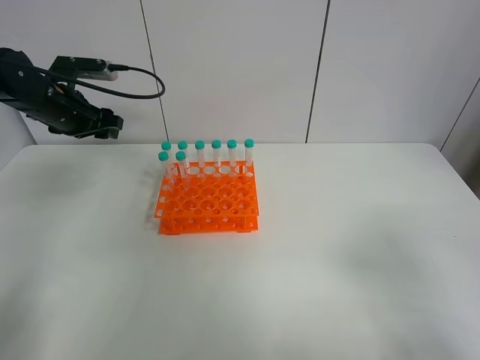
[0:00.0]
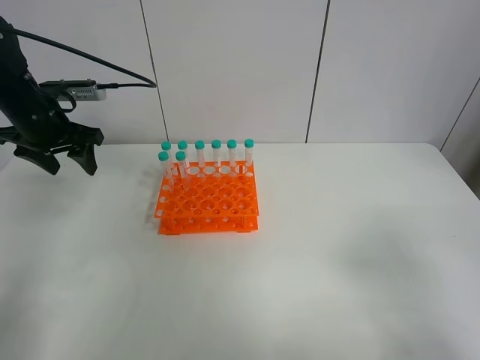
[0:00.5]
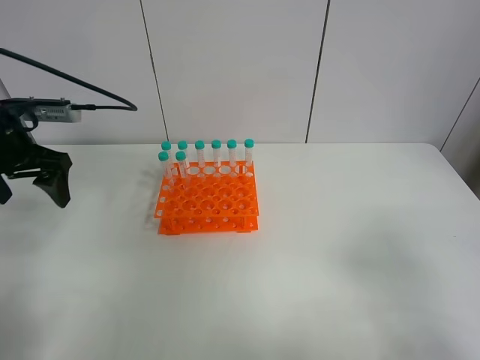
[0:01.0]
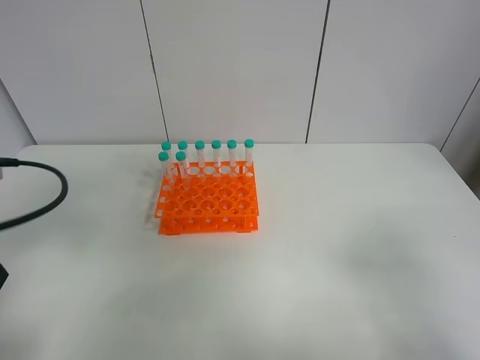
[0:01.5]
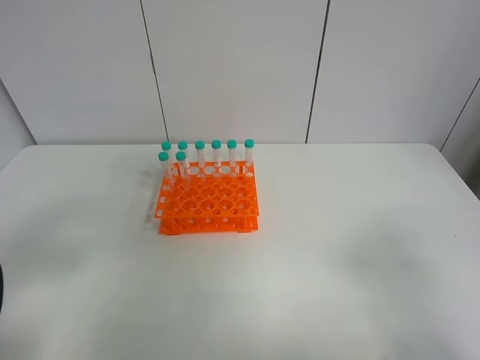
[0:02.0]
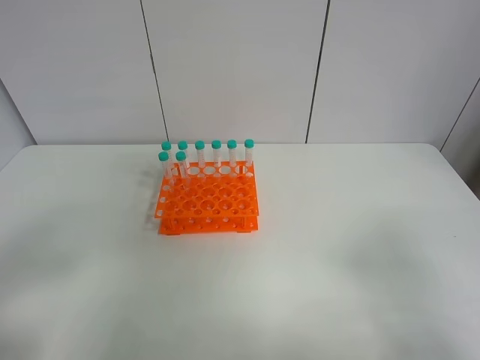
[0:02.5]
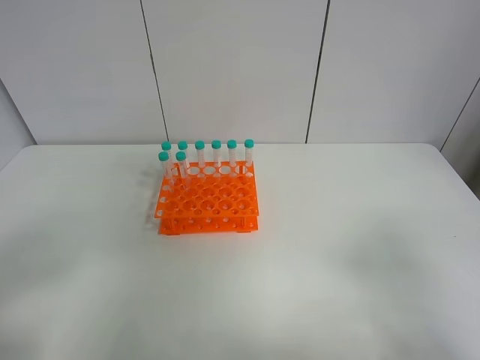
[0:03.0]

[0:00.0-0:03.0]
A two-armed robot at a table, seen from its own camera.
Task of the whole recording: Put the test tube on the table back onto the test tube rack.
0:00.0 to 0:01.5: The left gripper moves backward, some 25 cm.
0:01.5 to 0:03.0: The left gripper shifts about 15 cm backward.

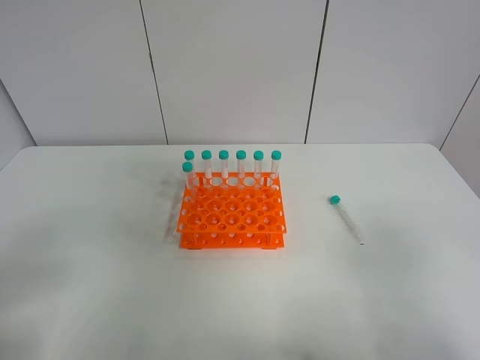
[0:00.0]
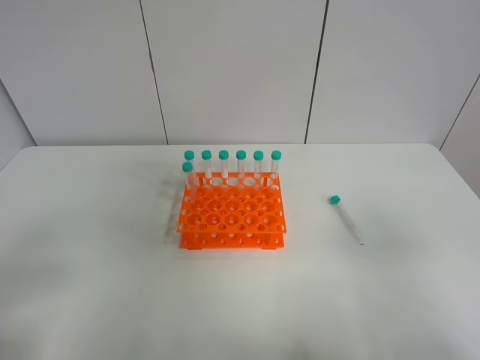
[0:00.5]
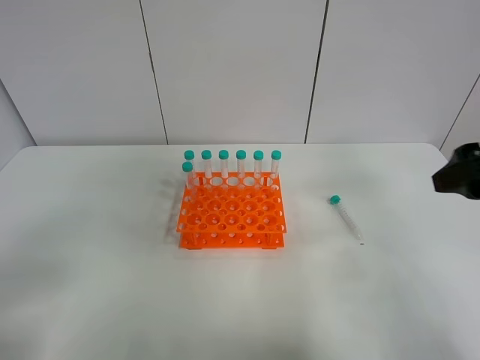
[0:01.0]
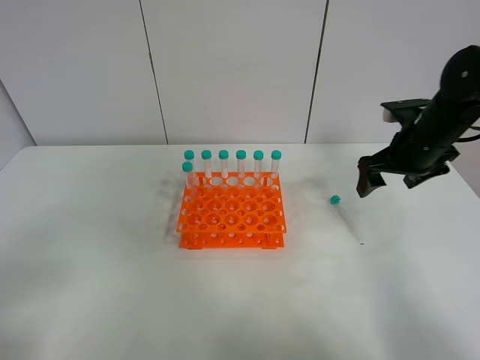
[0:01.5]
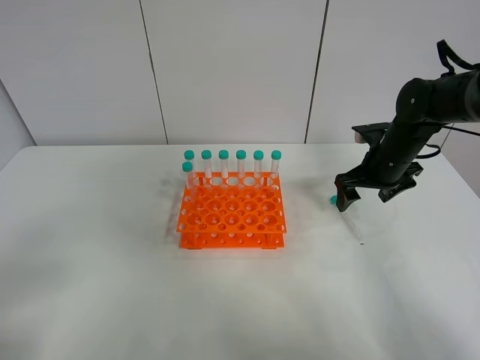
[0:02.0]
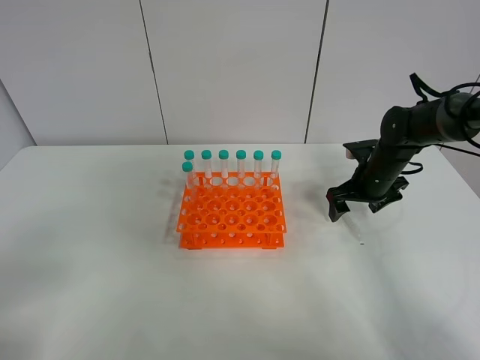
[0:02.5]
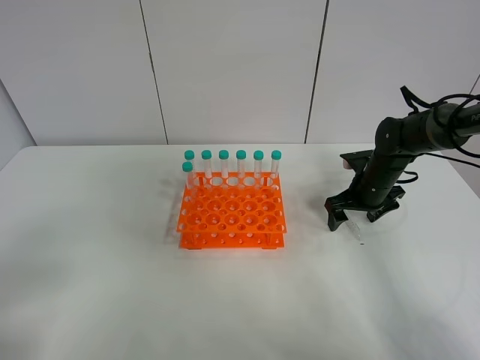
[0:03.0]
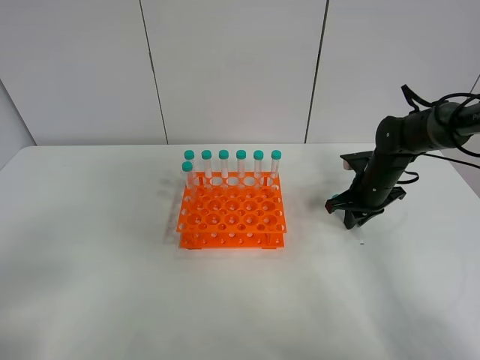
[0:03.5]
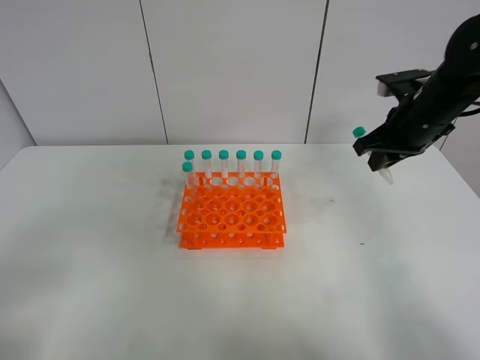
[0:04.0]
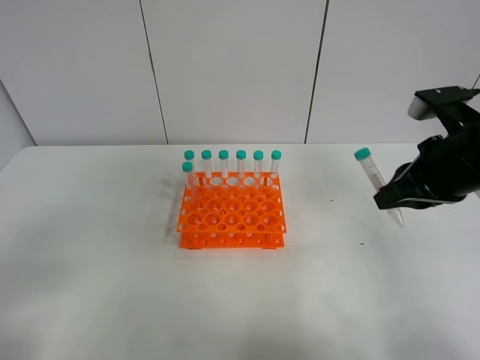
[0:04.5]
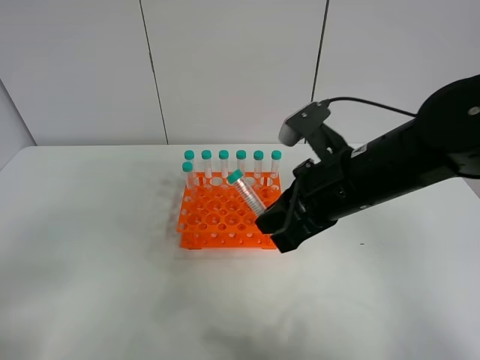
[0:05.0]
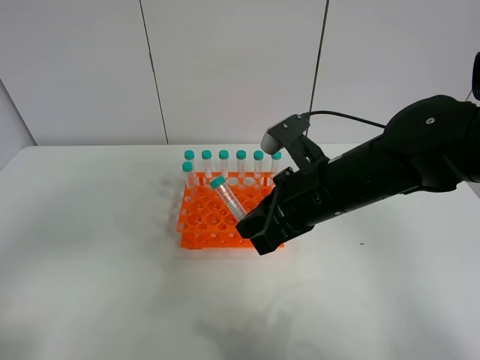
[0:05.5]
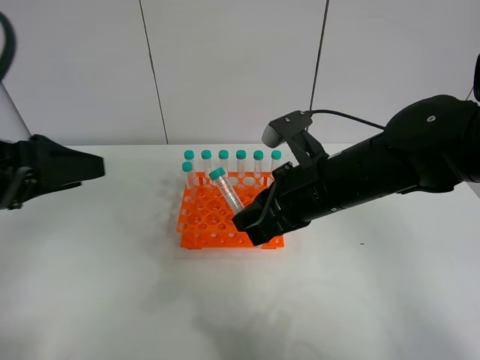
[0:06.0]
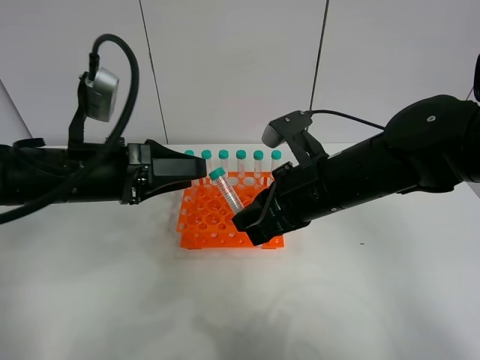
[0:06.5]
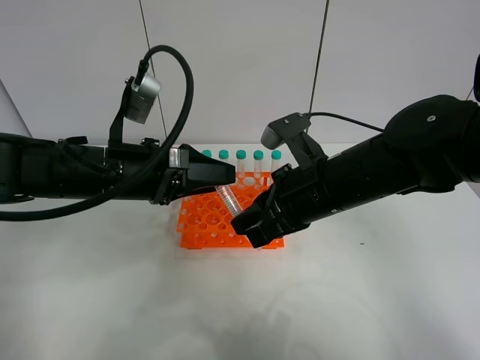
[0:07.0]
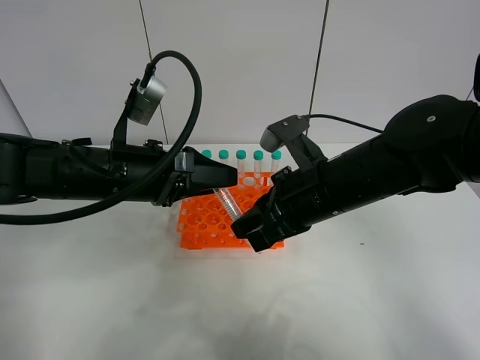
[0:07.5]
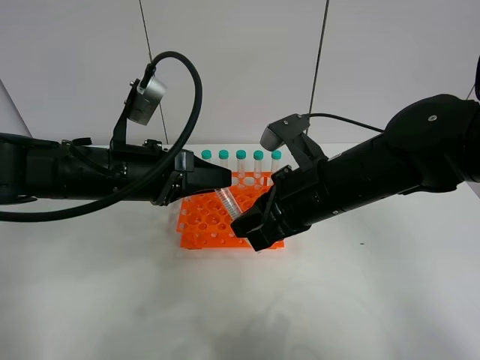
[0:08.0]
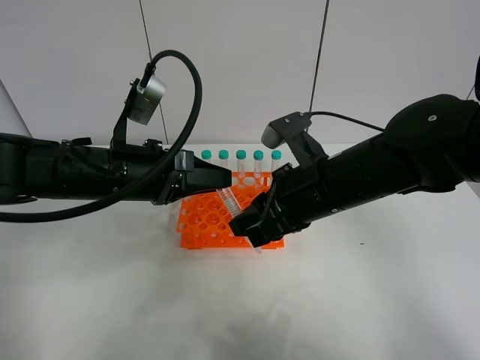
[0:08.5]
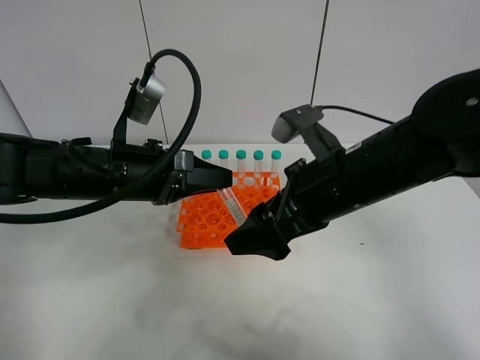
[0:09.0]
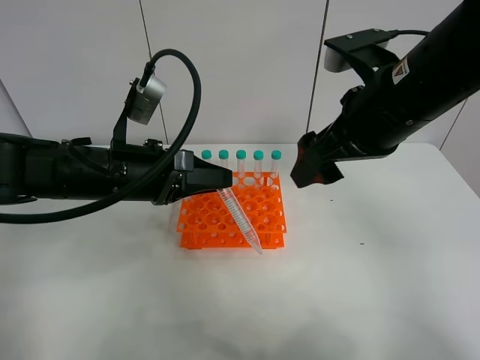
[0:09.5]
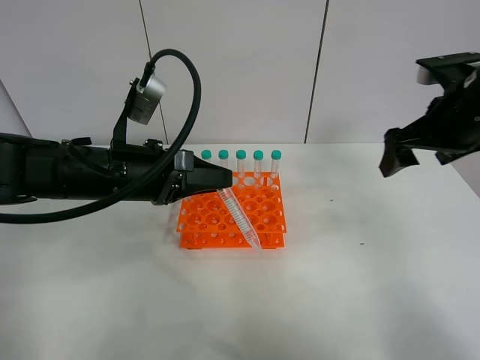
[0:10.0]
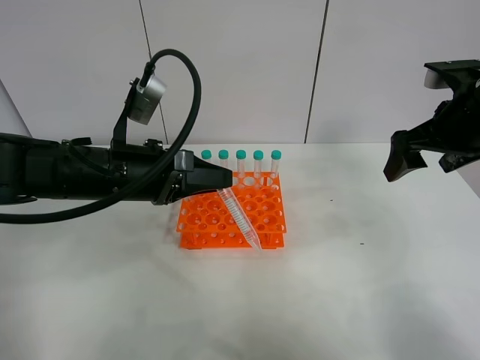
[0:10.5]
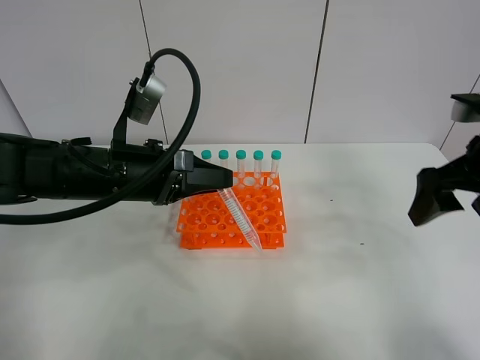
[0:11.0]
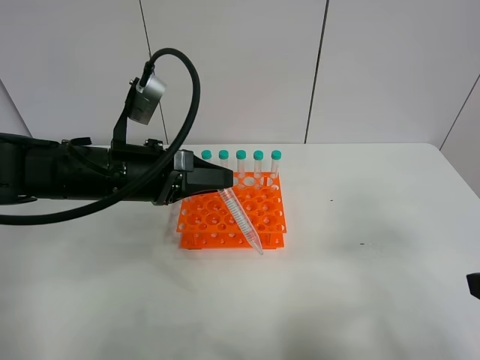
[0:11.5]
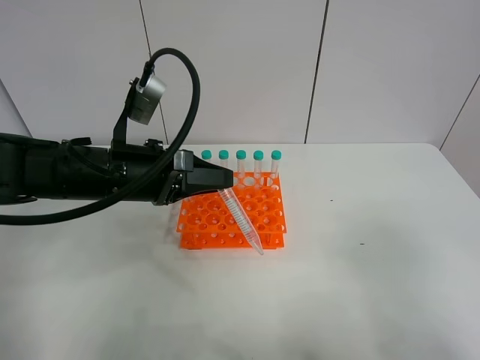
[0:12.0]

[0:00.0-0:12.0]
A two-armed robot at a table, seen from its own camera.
Task of the whole recording: Put the test tube on the table back onto the test tube rack.
Step, 0:00.0 to 0:03.5: Pick up the test tube with the right gripper.
Step, 0:04.0 to 0:08.5: Move the test tube from the right gripper to the left gripper.
0:00.0 to 0:02.0: The right gripper is displaced forward by roughly 40 cm.
0:02.0 to 0:04.0: The right gripper goes approximately 10 cm upward, and closes its fingers.
0:04.0 to 0:06.0: The left gripper heads forward, covering roughly 20 cm. Meanwhile the right gripper goes about 20 cm to the left and backward.
0:06.0 to 0:08.0: The left gripper travels to the right, downward and forward by roughly 15 cm, and closes up.
0:08.0 to 0:10.0: The right gripper travels to the right by some 20 cm, and opens.
0:10.0 to 0:12.0: The right gripper travels backward by approximately 30 cm.

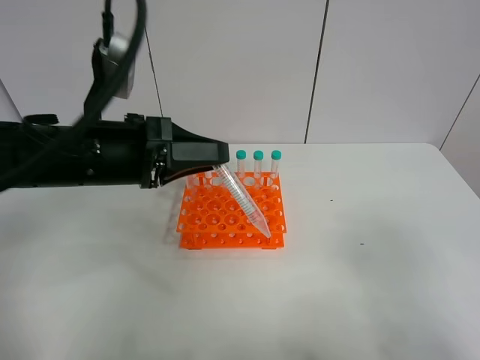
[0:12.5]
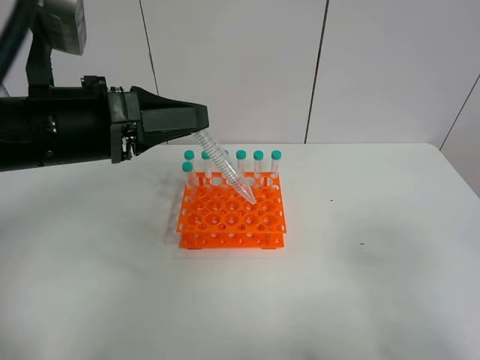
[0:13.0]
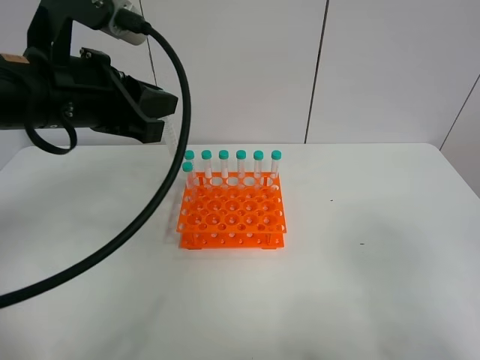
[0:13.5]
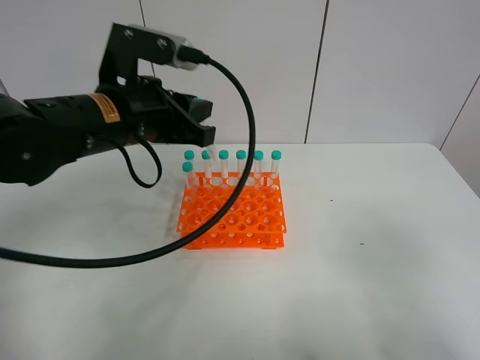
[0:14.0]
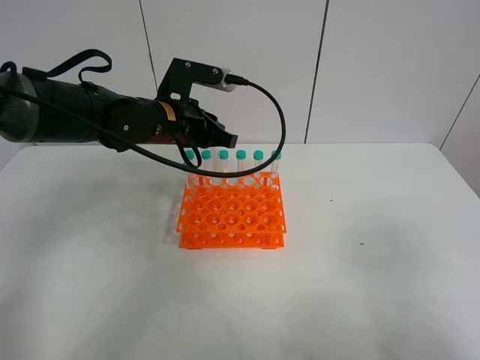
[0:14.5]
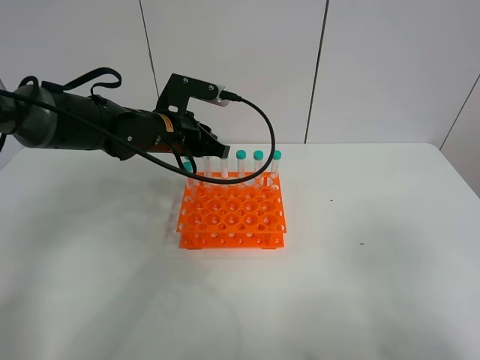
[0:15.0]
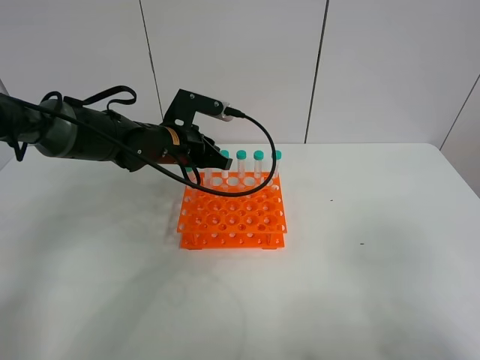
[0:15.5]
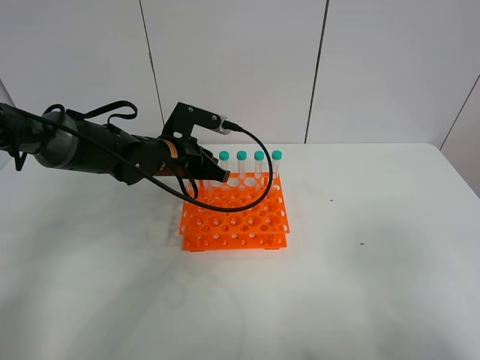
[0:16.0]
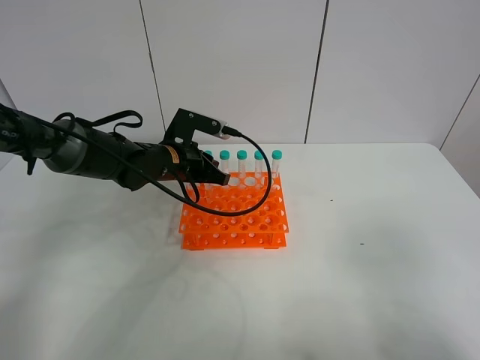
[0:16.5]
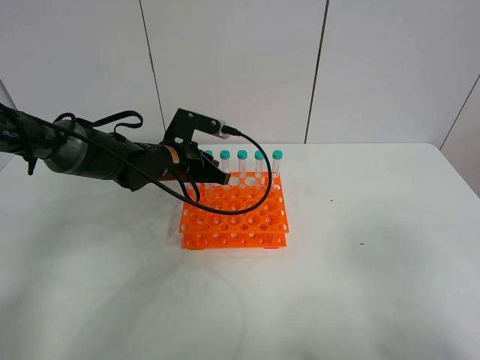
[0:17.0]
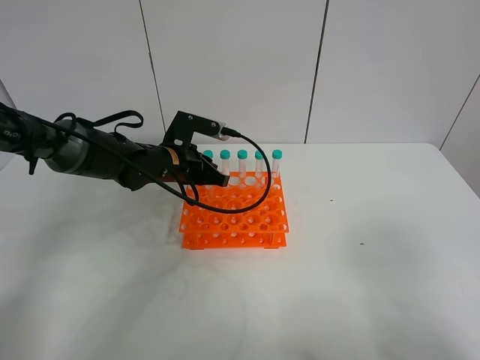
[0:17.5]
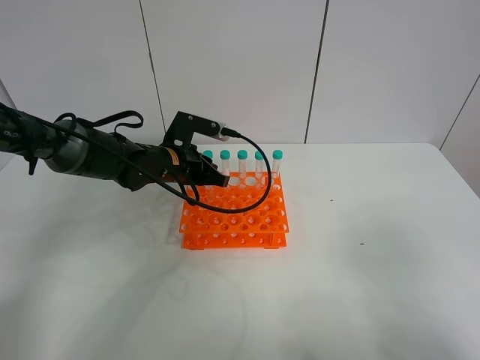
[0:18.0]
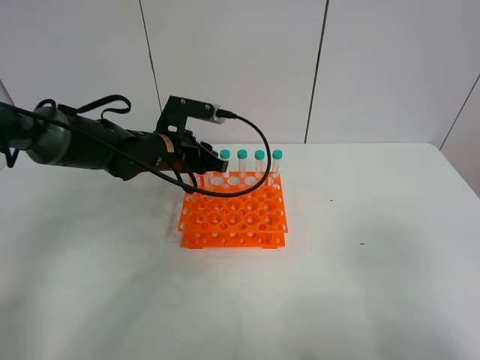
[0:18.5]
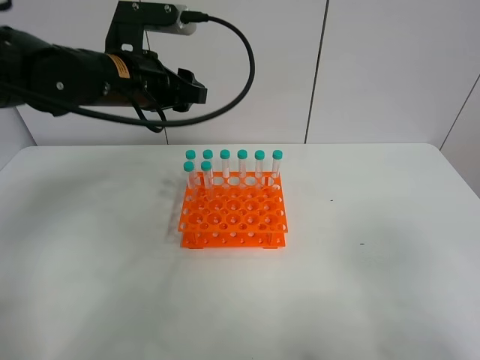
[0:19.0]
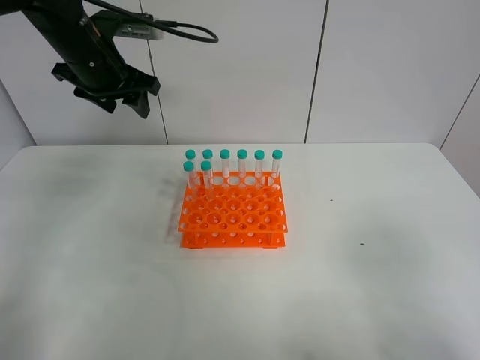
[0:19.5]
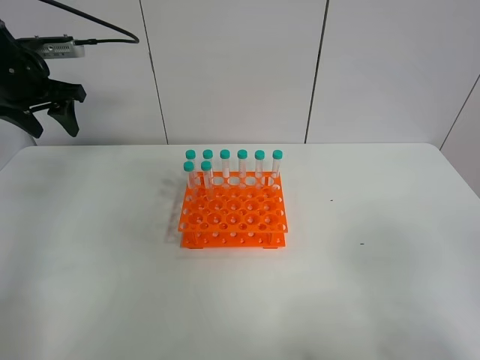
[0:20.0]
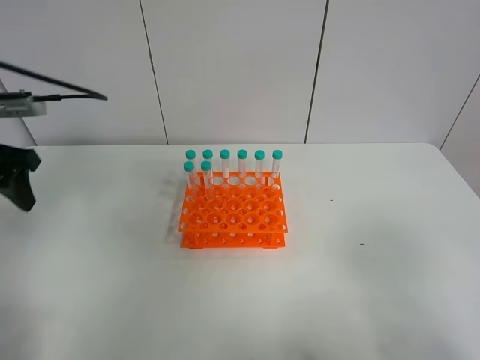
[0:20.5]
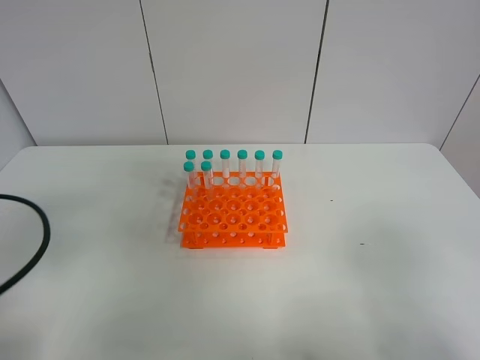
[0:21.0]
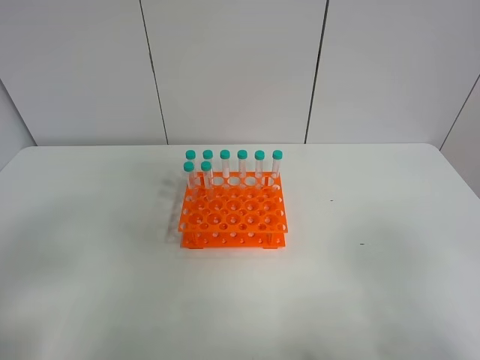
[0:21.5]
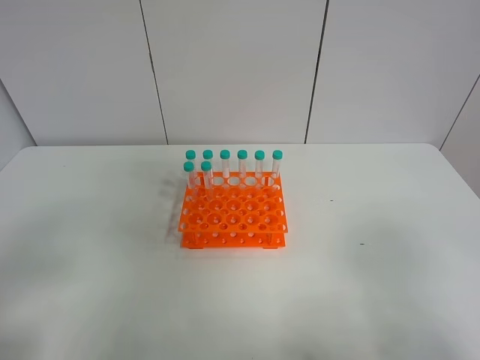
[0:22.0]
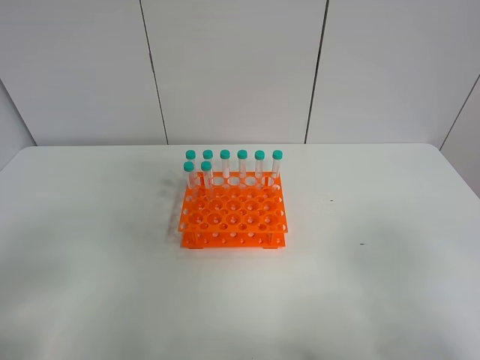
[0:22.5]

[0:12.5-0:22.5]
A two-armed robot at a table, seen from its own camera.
Task of the whole recording: Put the test tube on the table back onto the test tube rack.
Step, 0:12.5 to 0:18.0: Place the test tube on the test tube rack with the left gripper.
0:12.5 to 0:14.5: The left gripper travels forward by some 15 cm.
0:14.5 to 0:16.5: The left gripper heads downward, covering about 10 cm.
0:16.5 to 0:18.5: The left gripper opens its fingers.
0:18.5 to 0:20.5: The left gripper goes roughly 25 cm to the left, backward and upward, and opens up.
0:20.5 to 0:22.5: The left gripper heads backward, covering roughly 25 cm.
